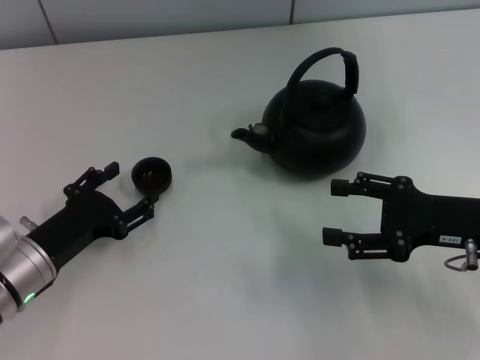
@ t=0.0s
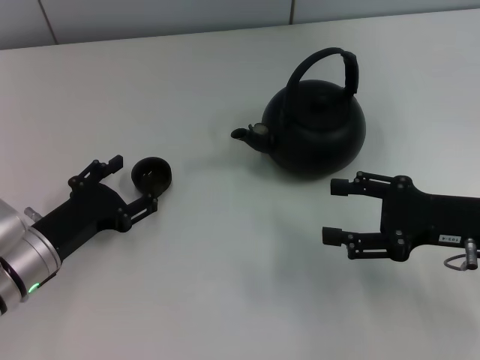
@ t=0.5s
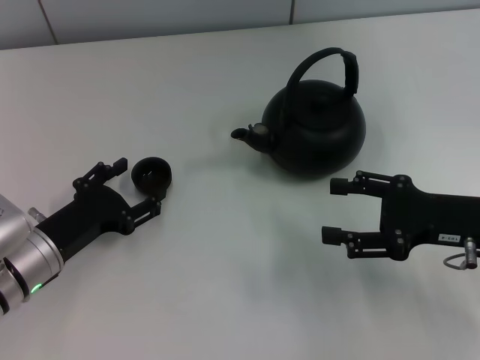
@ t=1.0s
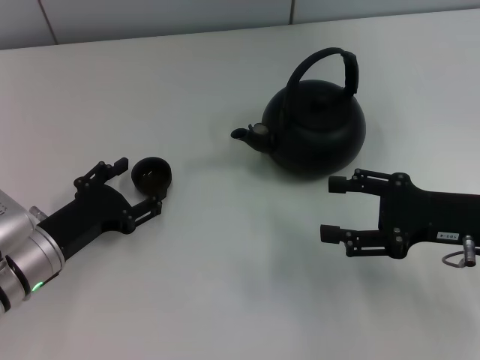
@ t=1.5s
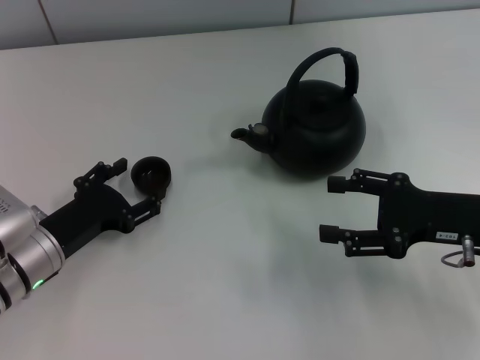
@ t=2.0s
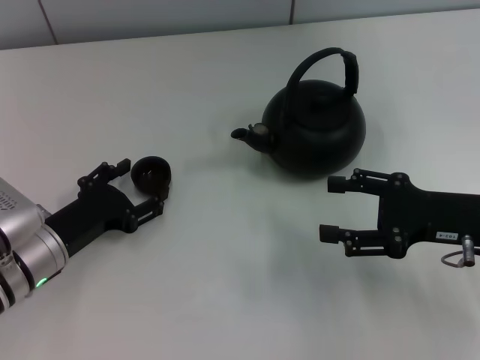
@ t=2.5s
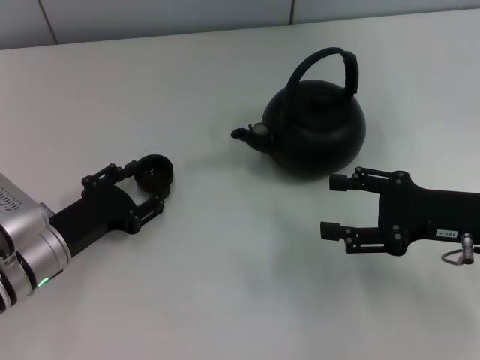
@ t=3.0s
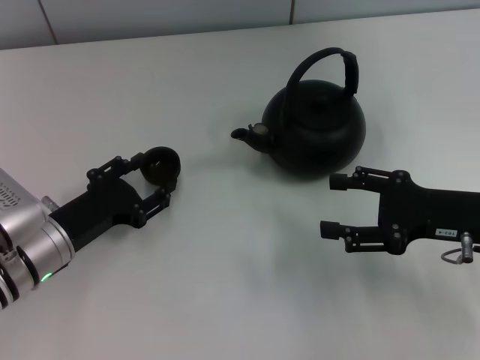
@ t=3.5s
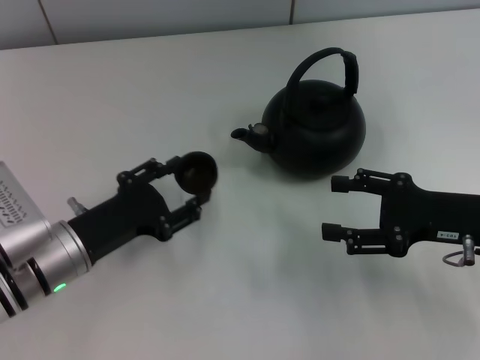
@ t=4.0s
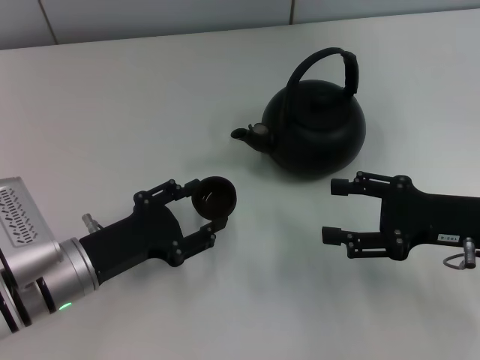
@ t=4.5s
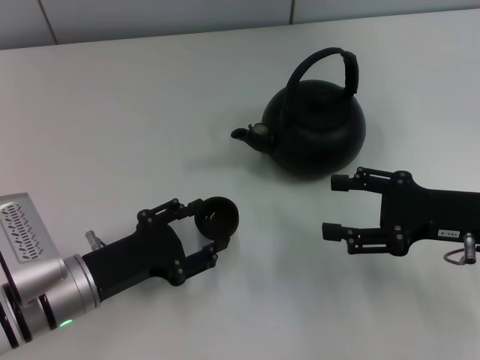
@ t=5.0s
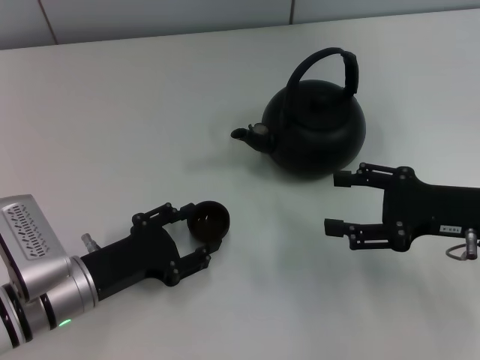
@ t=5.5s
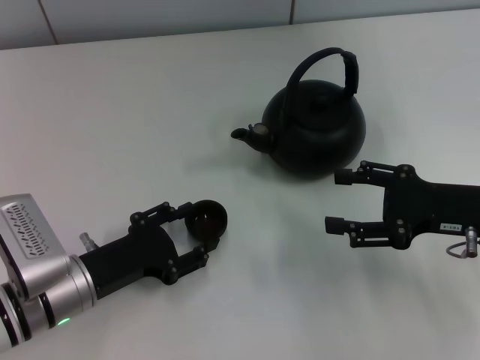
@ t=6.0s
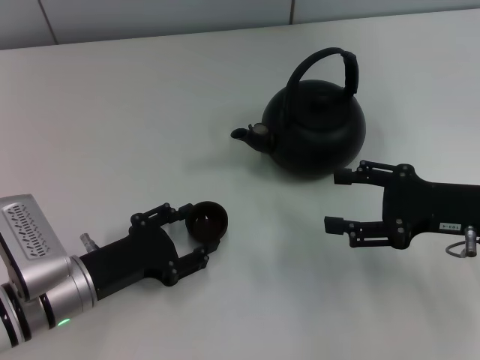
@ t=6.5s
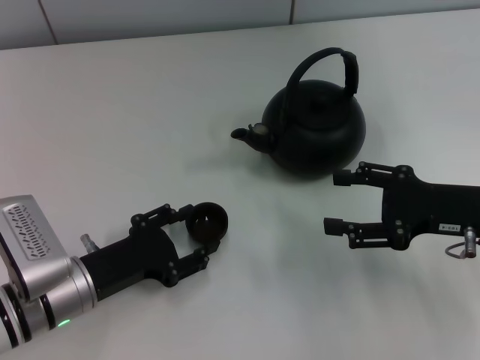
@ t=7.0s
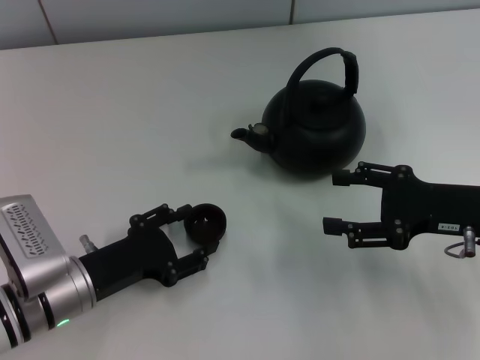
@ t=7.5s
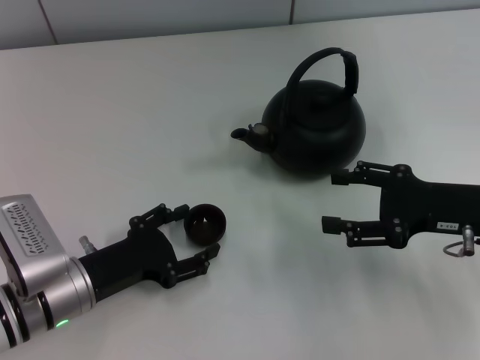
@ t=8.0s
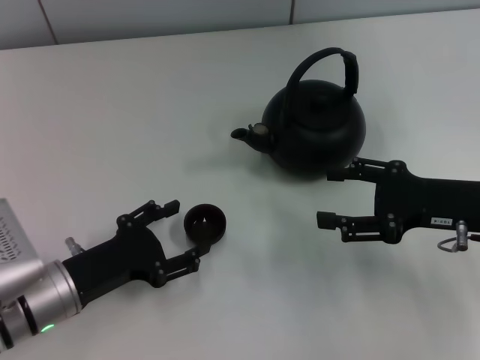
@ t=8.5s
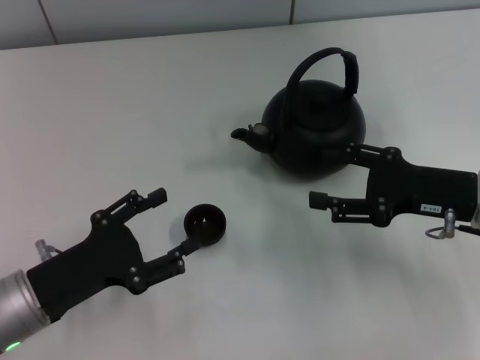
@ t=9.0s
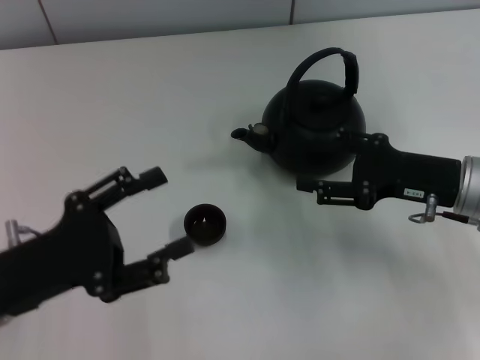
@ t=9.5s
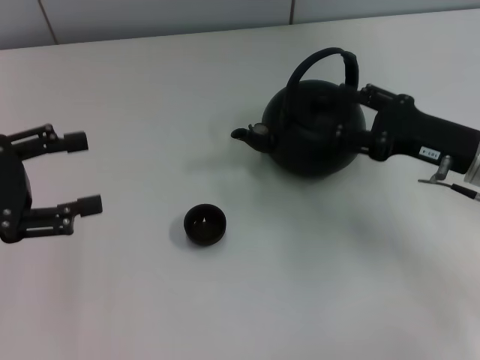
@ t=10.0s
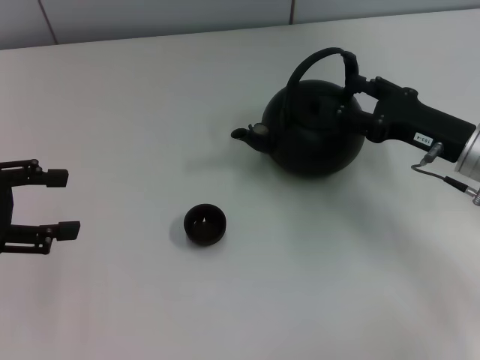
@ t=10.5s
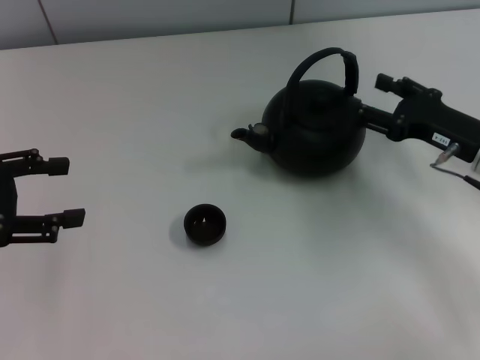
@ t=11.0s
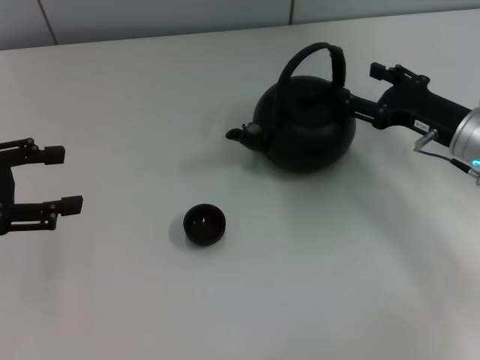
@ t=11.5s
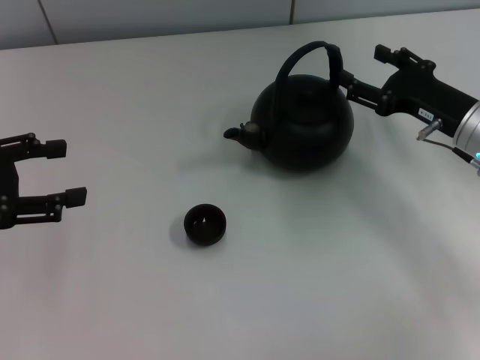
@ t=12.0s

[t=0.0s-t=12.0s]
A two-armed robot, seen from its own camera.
Task of the whole recording: Grasp the handle of the teapot with one hand and pour tea into the teacup.
Step, t=0.0s to t=3.5s: Pick up the teacup with the left gripper.
Step, t=4.0s to t=8.5s: Place the teacup in the center of view with the left gripper.
t=0.0s to t=2.0s: There are only small adjustments of the grippers.
t=2.0s to t=4.0s: The left gripper closes up.
t=4.0s to t=6.0s: The grippers stay close to where they were, moving slightly.
t=6.0s to t=8.0s: The left gripper opens its fingers.
t=8.0s to t=10.0s: The left gripper goes roughly 20 cm upward and to the left.

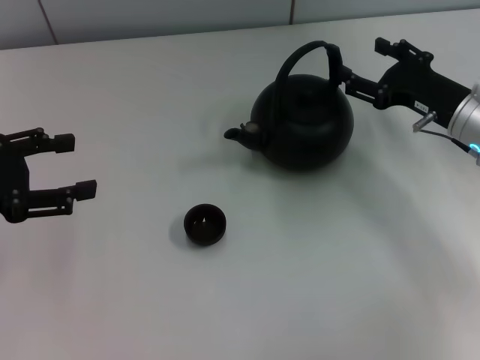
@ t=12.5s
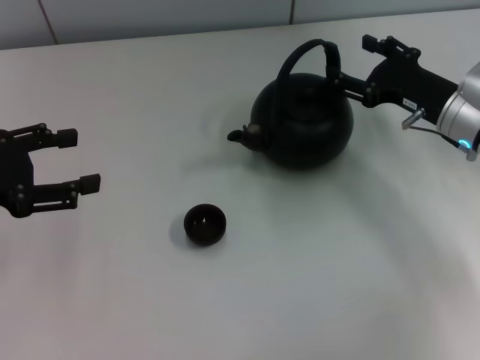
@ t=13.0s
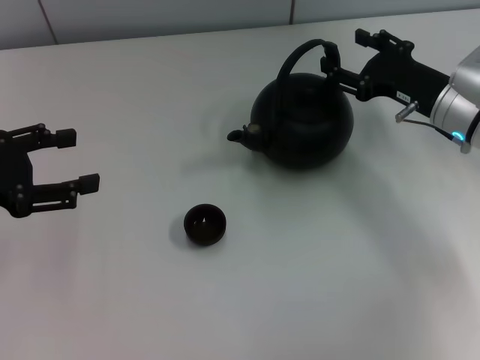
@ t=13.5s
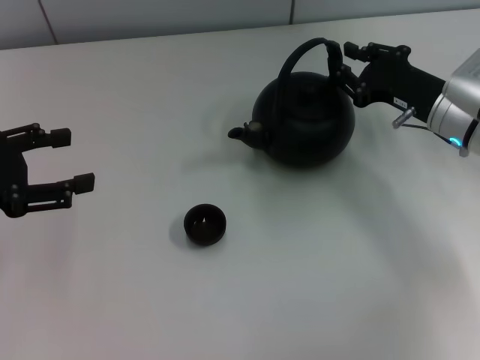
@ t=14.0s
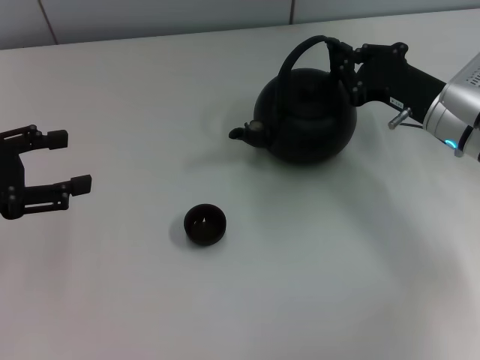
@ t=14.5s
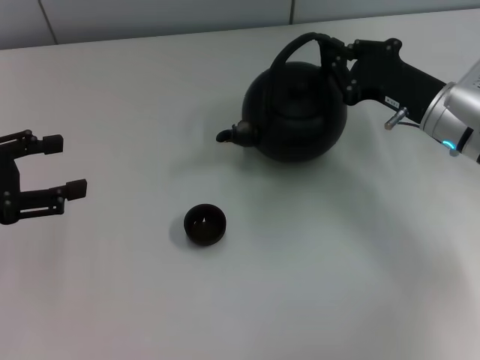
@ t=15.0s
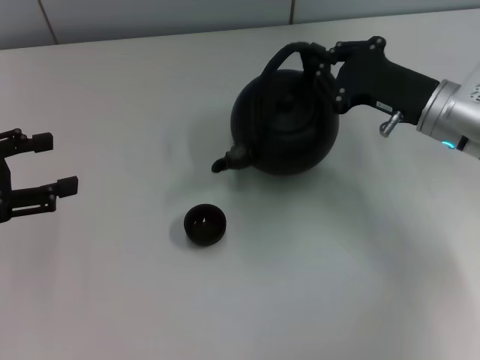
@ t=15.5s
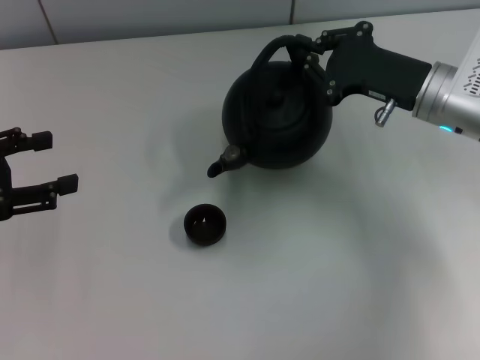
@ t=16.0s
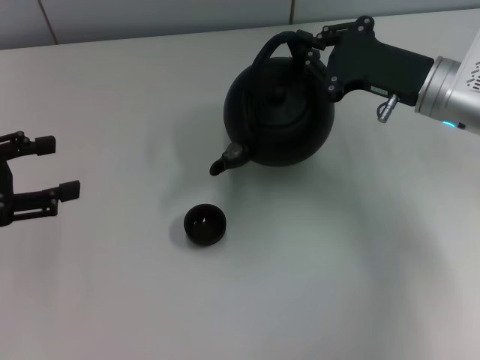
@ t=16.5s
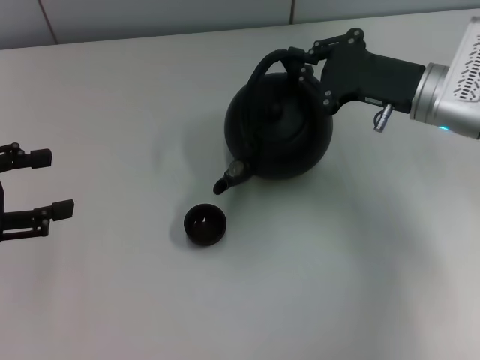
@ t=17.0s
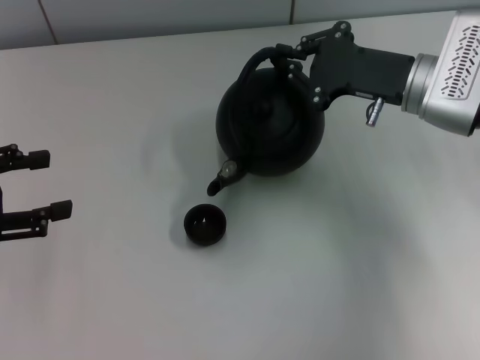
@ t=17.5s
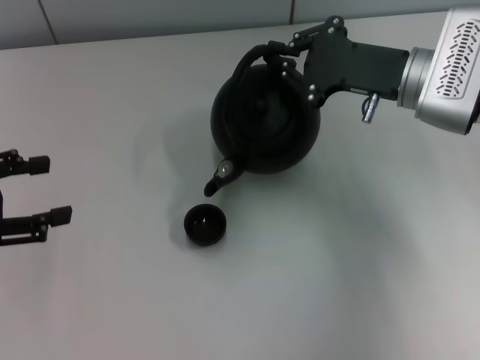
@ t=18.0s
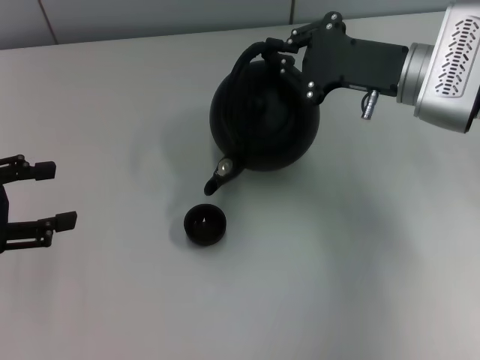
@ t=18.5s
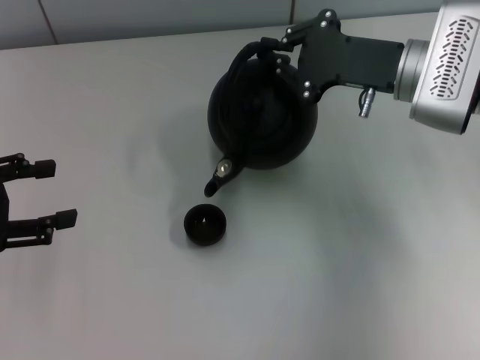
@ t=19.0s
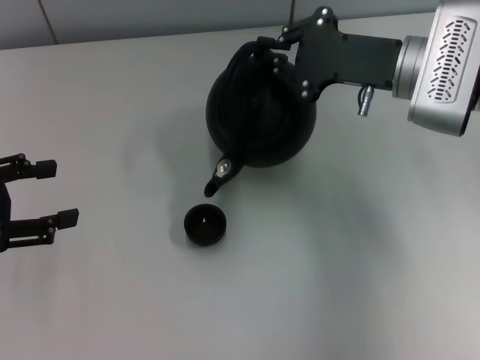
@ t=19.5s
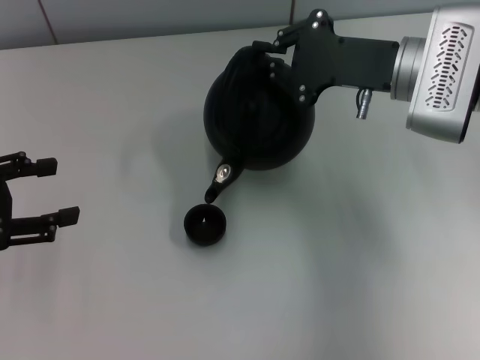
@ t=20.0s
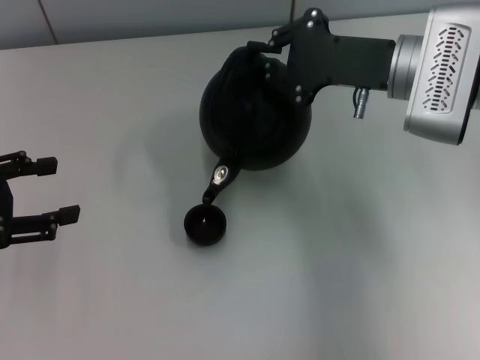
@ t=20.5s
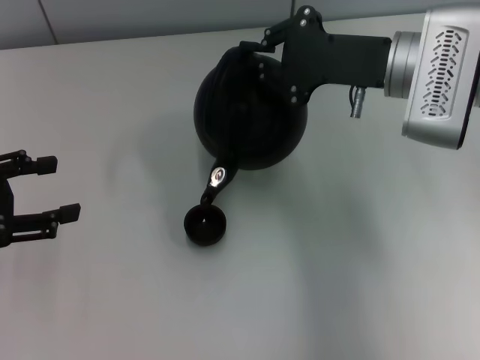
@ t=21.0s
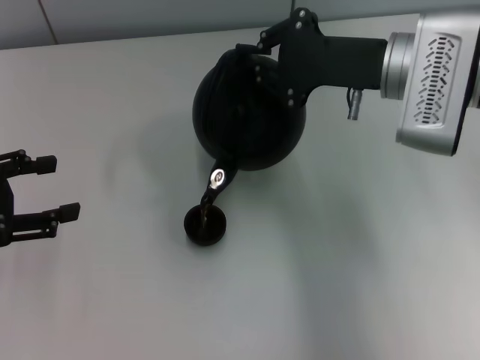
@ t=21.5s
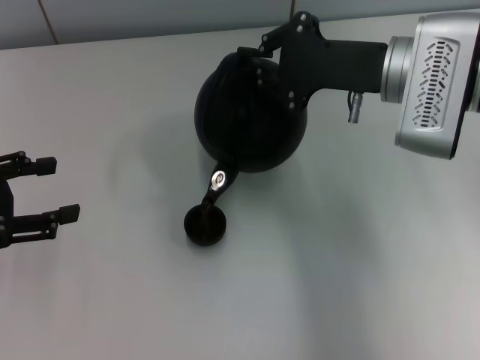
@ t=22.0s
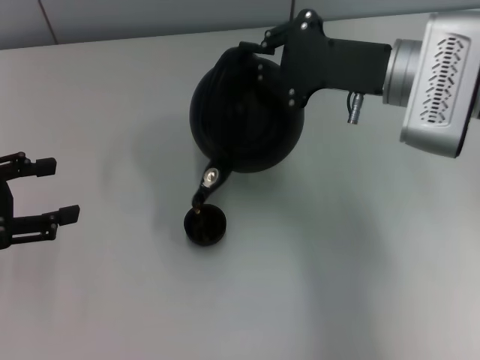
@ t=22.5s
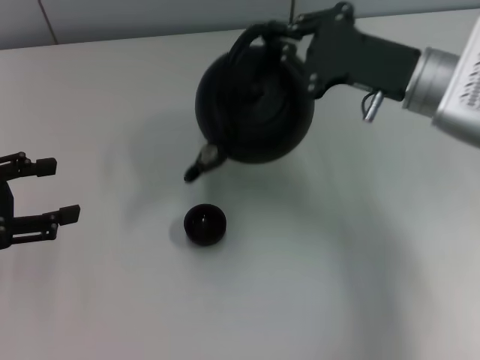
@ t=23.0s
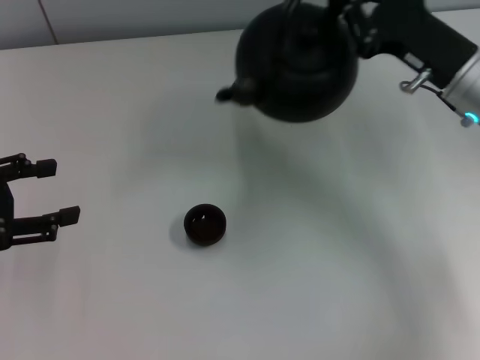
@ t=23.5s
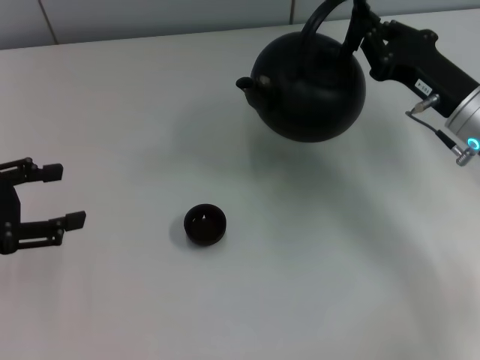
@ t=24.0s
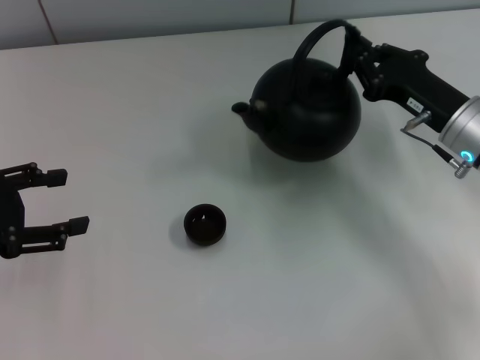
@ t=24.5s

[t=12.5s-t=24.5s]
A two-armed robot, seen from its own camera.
Task of the whole recording: Grasp the handle of the teapot with one hand and pour tea into the teacup.
Step, t=12.5s to t=17.0s: Pick up the teapot with the right gripper.
t=12.5s to t=14.5s: The right gripper closes.
t=16.5s to t=18.5s: The grippers make only small movements.
t=18.5s to t=22.5s: There are only small adjustments of the grippers.
t=22.5s to t=24.5s: The right gripper heads downward and to the right, covering about 10 cm.

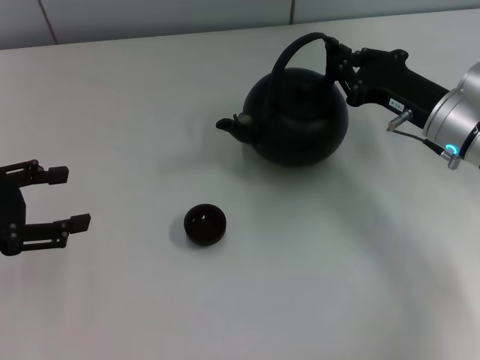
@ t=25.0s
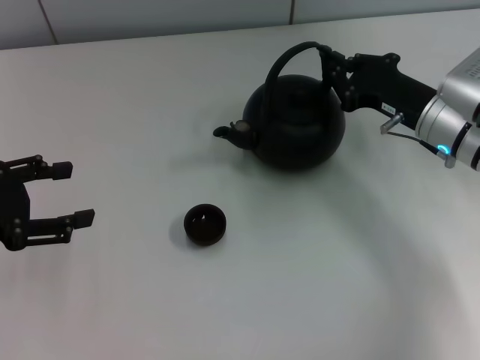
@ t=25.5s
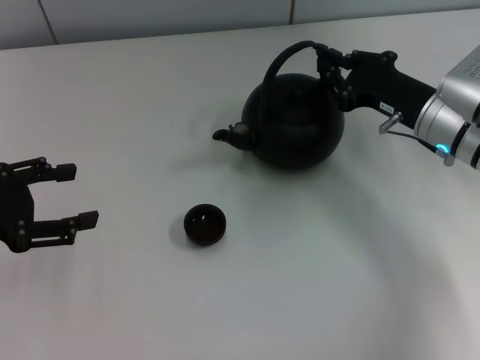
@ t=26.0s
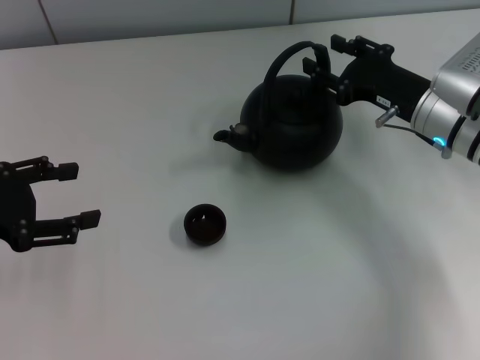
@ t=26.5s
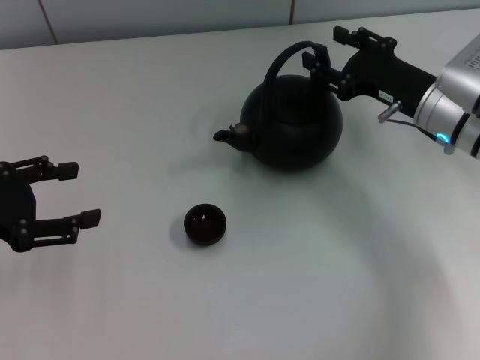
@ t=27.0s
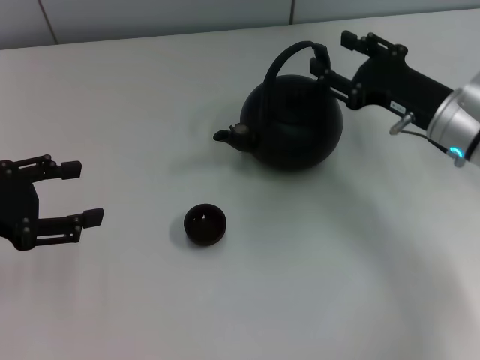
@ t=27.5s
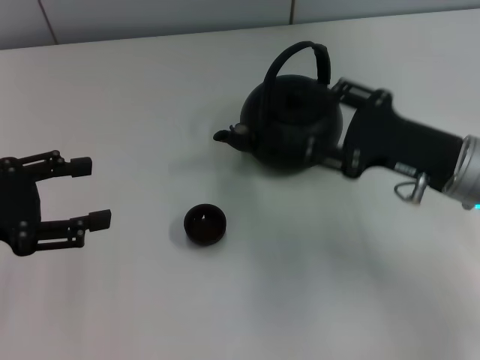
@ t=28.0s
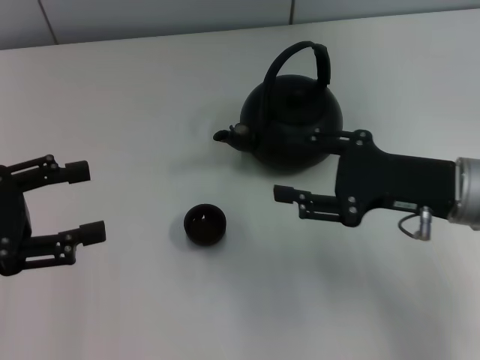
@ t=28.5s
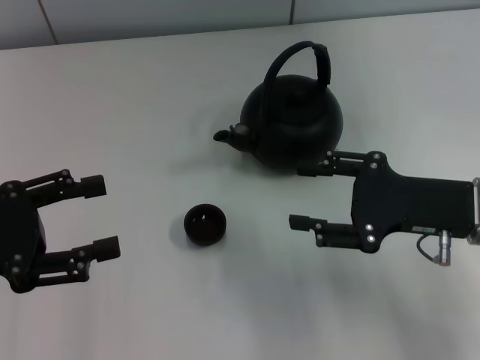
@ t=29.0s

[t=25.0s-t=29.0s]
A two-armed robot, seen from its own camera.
Task of the whole recording: Grasp the handle of the teapot with one hand and pour tea into the teacup.
Step, t=25.0s to t=27.0s: Put down the teapot with the right gripper.
t=25.0s to t=27.0s: The right gripper opens.
t=27.0s to t=29.0s: The right gripper is displaced backward by approximately 10 cm.
